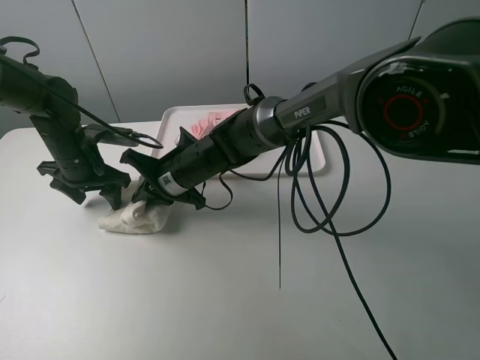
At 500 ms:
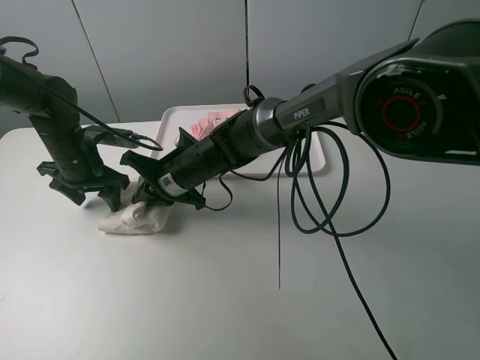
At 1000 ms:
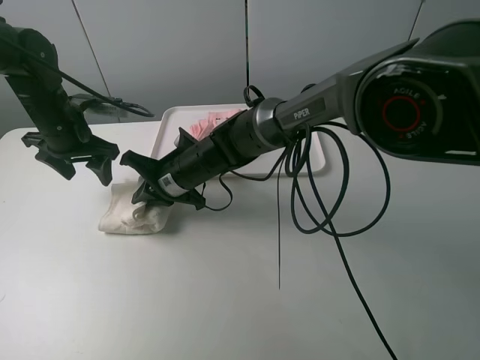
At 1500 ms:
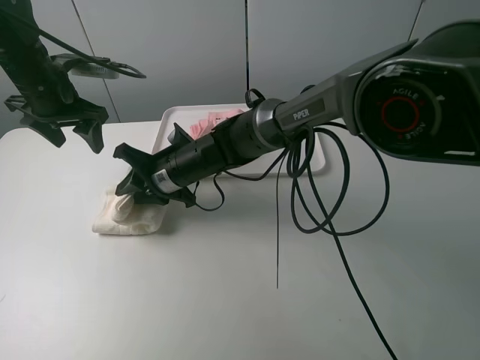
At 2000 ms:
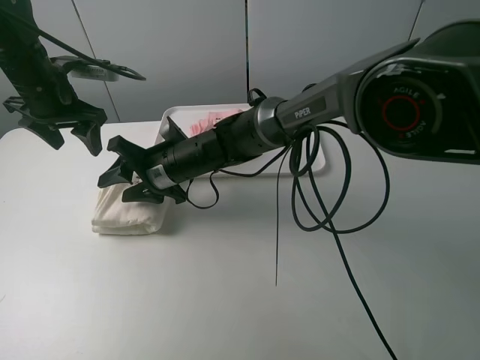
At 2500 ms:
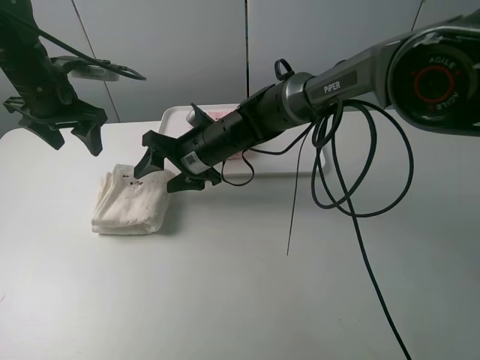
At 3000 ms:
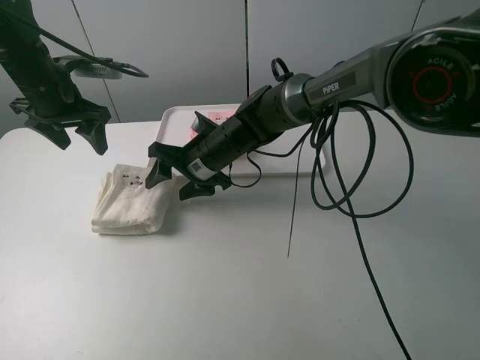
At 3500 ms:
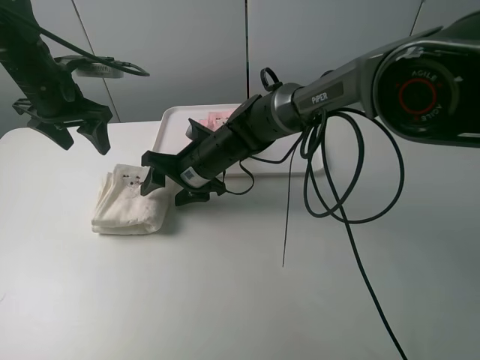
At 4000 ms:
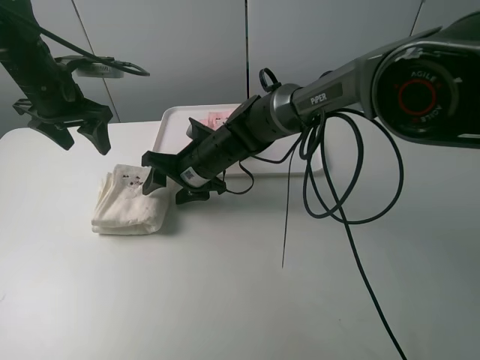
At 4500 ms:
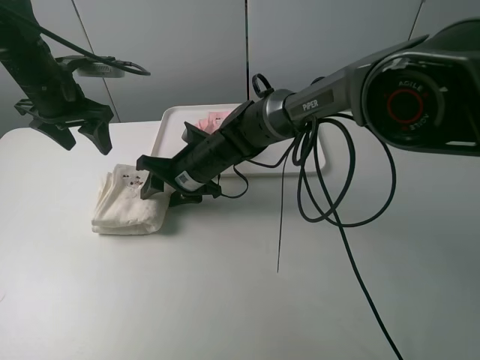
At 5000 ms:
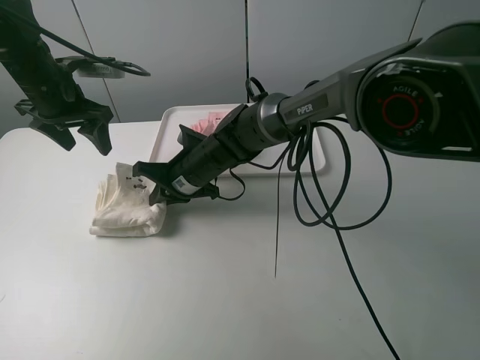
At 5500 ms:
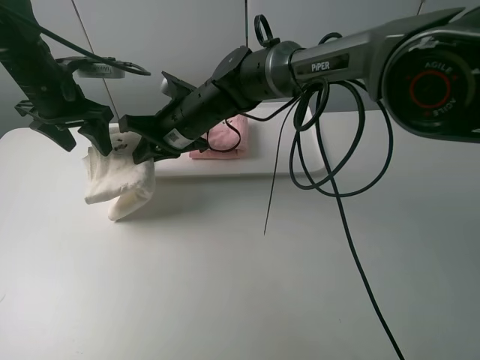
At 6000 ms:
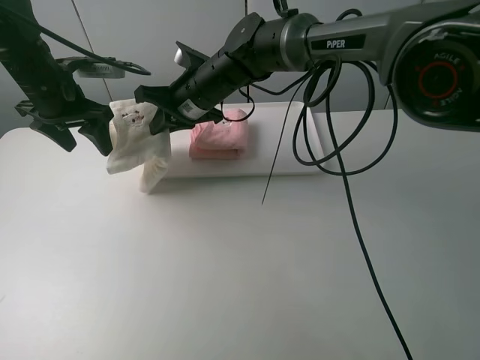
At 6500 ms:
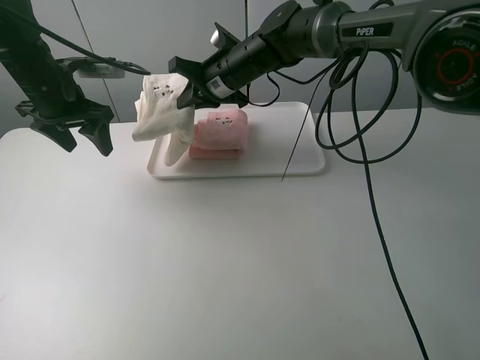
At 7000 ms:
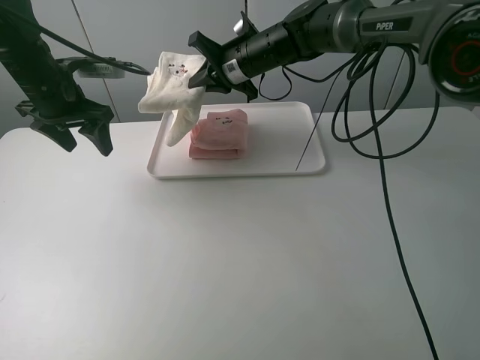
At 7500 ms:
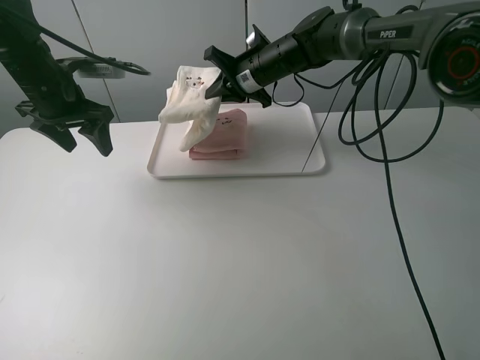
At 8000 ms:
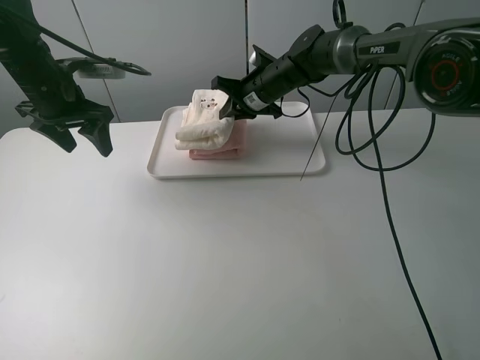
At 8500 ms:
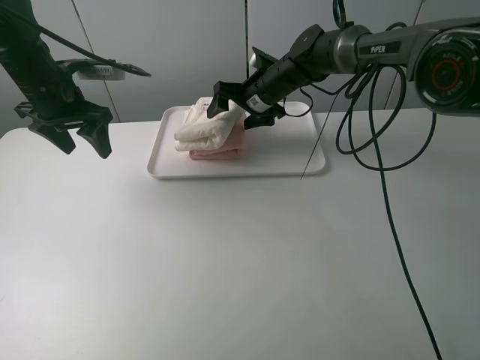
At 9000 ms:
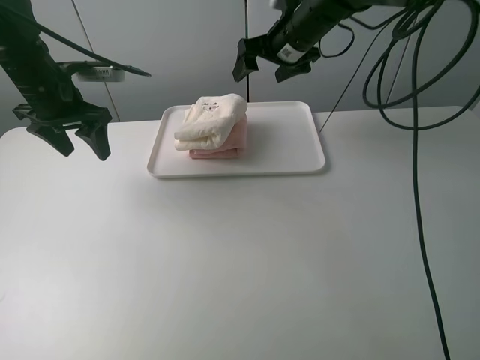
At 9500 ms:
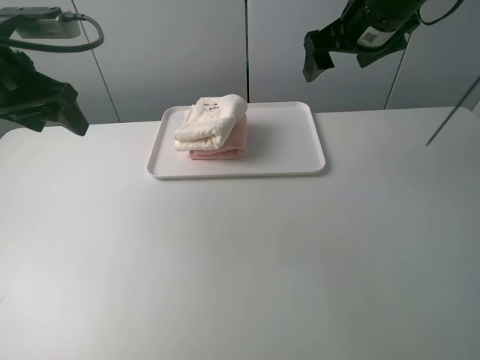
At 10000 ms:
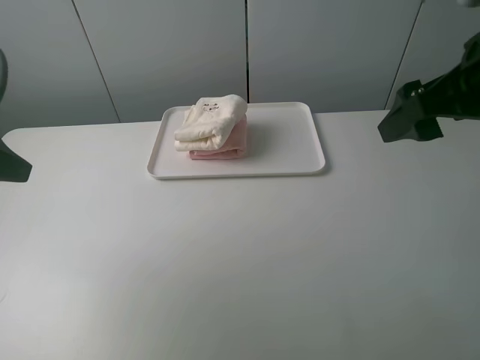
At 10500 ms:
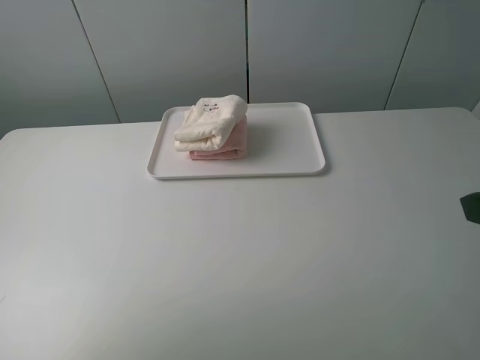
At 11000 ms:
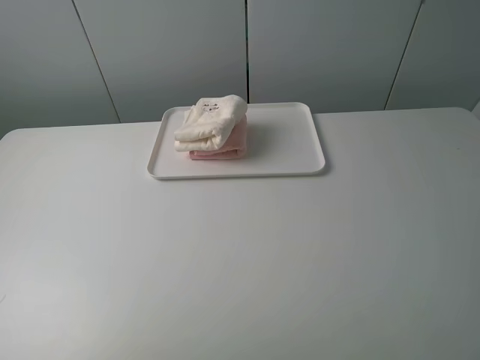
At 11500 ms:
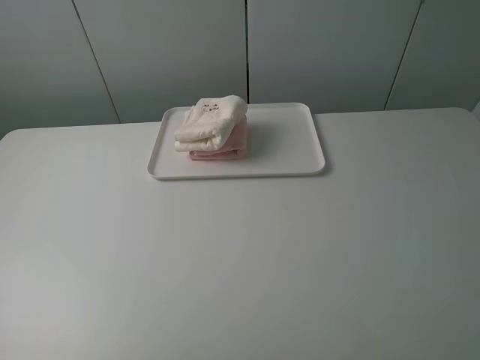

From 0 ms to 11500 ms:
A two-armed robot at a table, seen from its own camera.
Task of the whole recording: fold one of the towels by two grippers and place it on the tray,then fold another towel by two grippers and place it on the folded towel.
Step, from 2000 ms to 4500 ms: Grasp the white towel with the right gripper.
Step, from 5000 ms to 8500 ms: Place the white towel on the pink towel with the right gripper.
From 0 ms to 2000 ms: The right gripper opens its fingers. The left gripper is displaced upward by approximately 10 cm.
From 4000 ms to 6000 ms: The right gripper goes about 10 cm upward and forward, and closes up.
From 6000 ms to 7500 ms: The right gripper is displaced to the right and forward by about 10 cm.
From 7500 ms to 9500 ms: The left gripper goes approximately 10 cm backward and upward; the right gripper goes roughly 20 cm upward, to the right and backward, and opens up.
From 9500 ms to 11500 ms: Both grippers move backward, roughly 35 cm.

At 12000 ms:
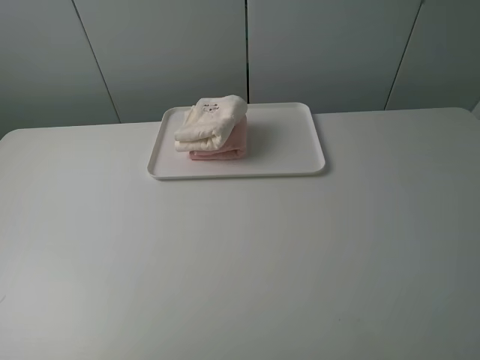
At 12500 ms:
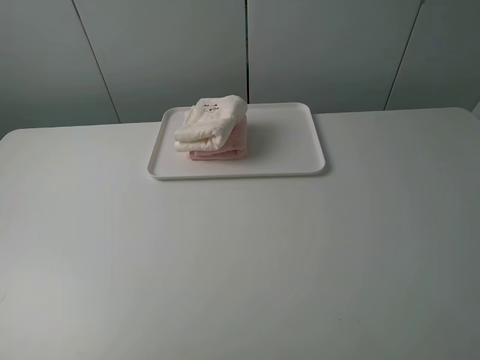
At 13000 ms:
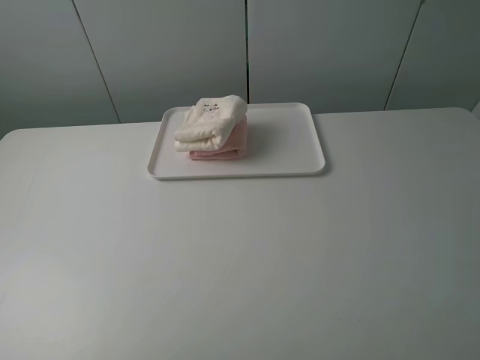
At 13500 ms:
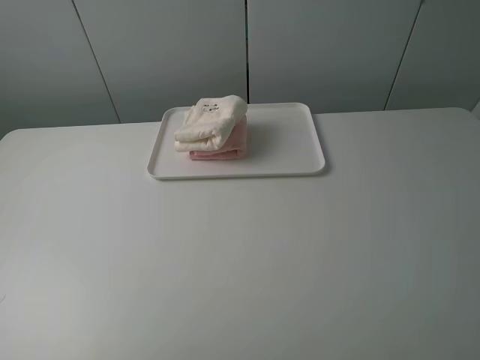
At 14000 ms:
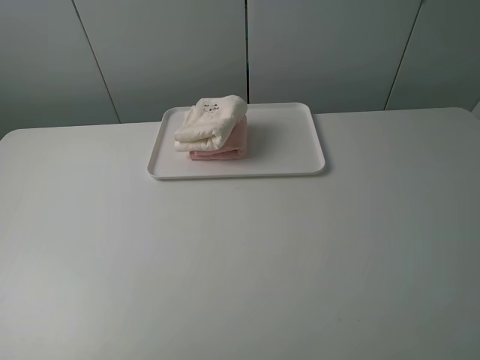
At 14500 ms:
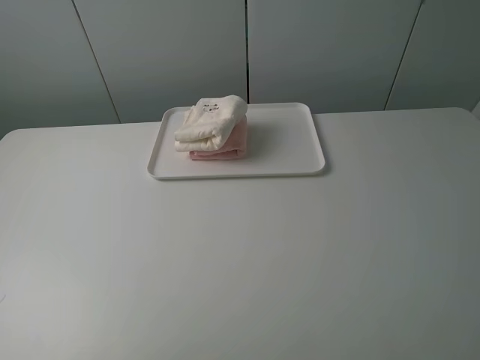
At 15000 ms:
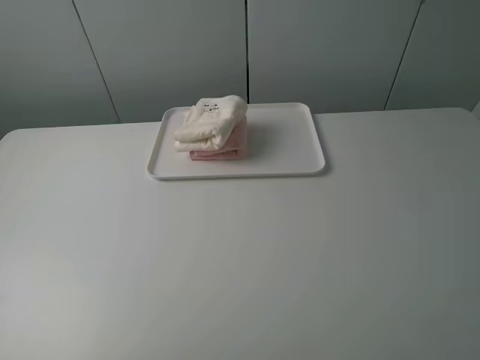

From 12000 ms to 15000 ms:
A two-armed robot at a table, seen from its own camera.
Task of the whole recording: fold one of the towels by two grippers and place it on the tray,then fold another towel by two grippers and place it on the folded towel.
From 13500 ms to 15000 ms: Both grippers stay put.

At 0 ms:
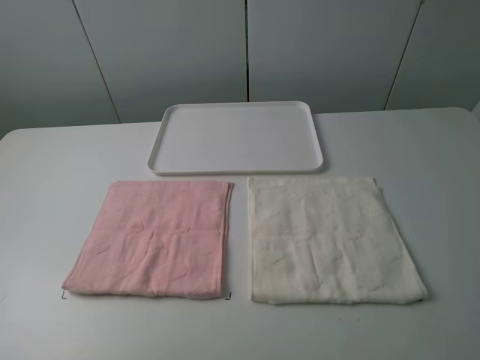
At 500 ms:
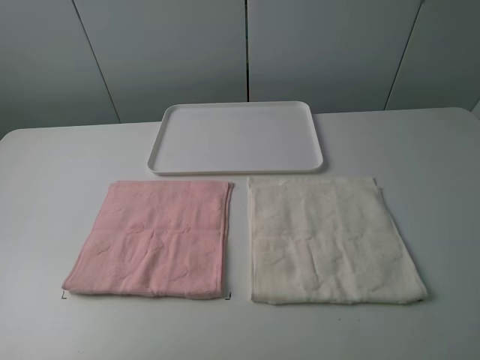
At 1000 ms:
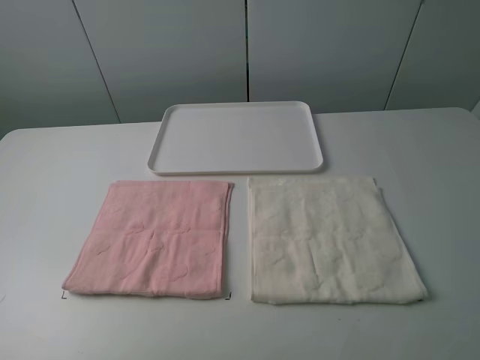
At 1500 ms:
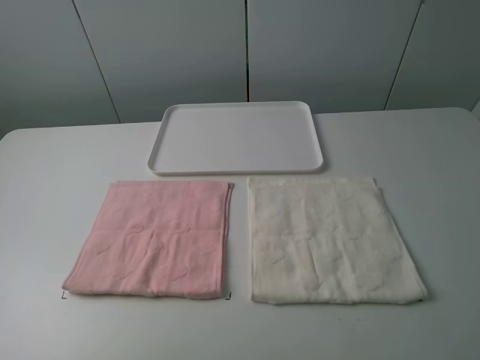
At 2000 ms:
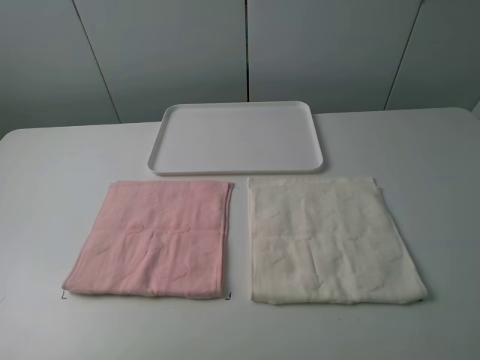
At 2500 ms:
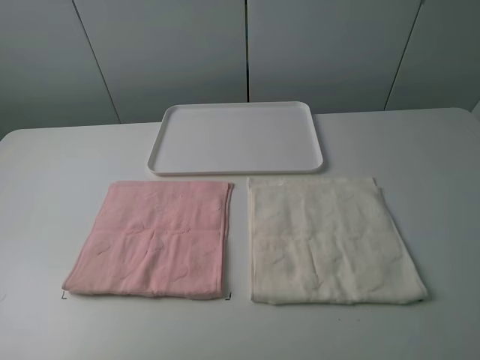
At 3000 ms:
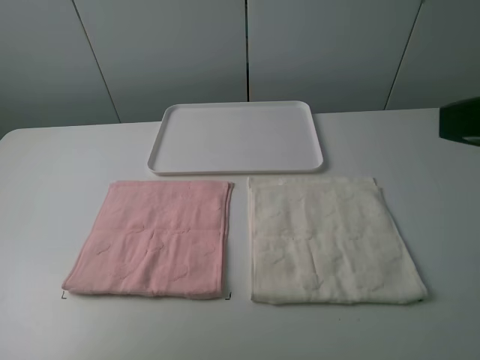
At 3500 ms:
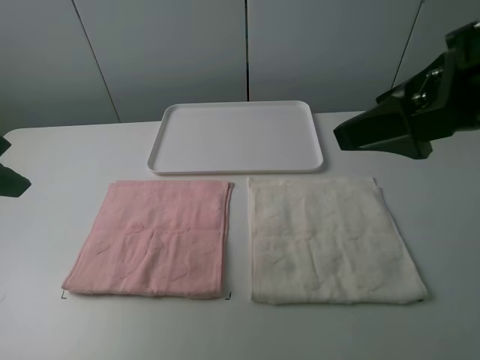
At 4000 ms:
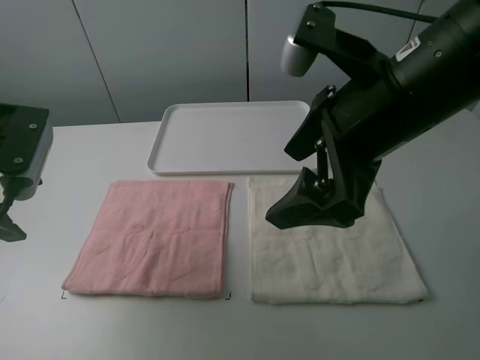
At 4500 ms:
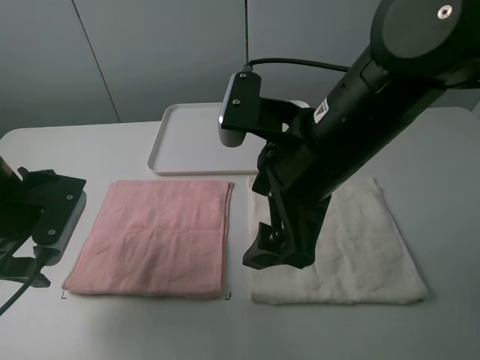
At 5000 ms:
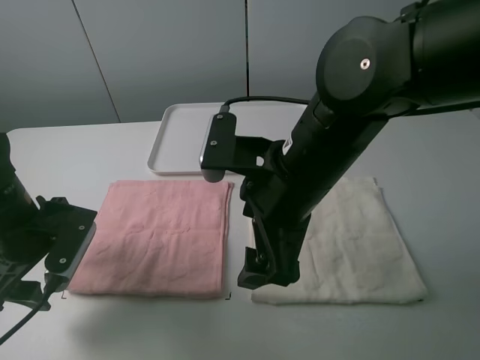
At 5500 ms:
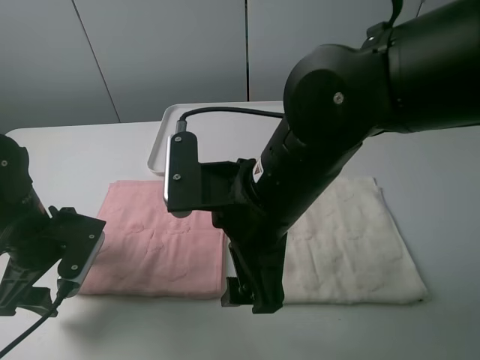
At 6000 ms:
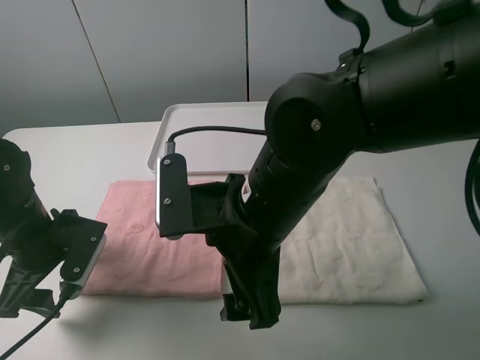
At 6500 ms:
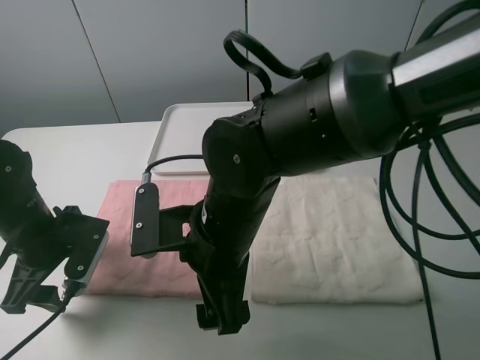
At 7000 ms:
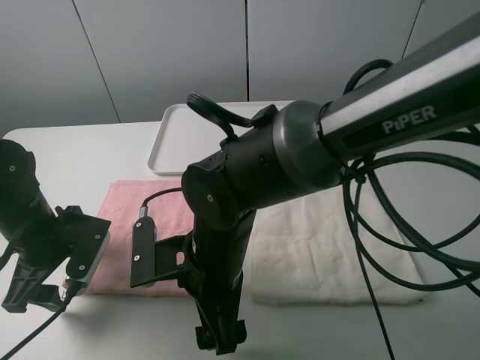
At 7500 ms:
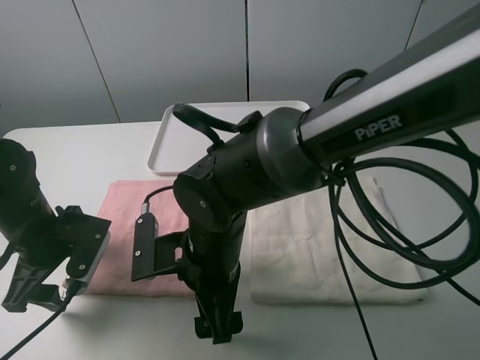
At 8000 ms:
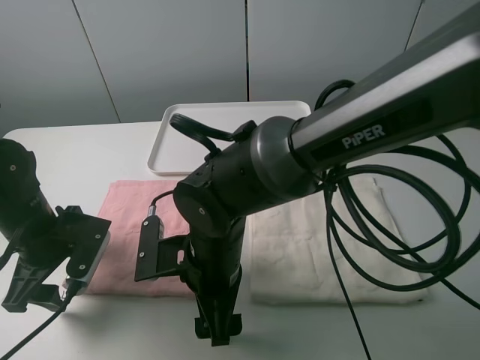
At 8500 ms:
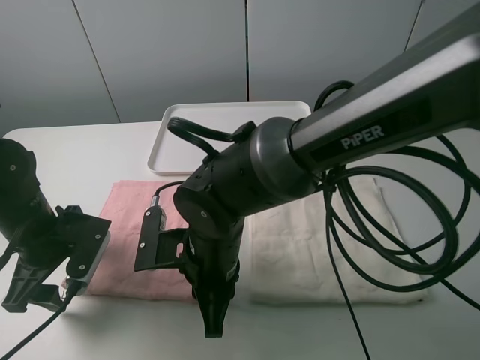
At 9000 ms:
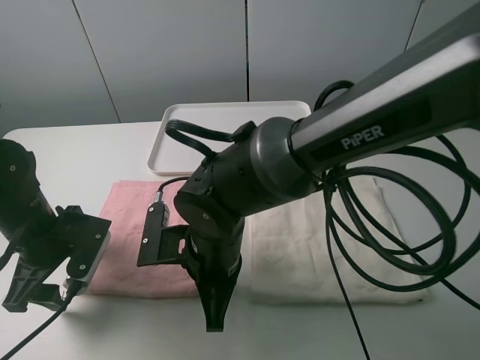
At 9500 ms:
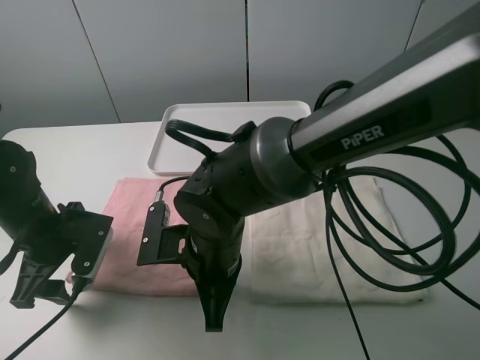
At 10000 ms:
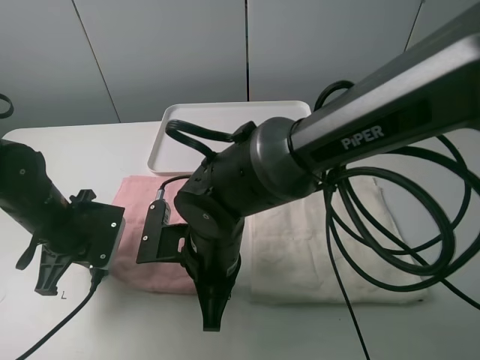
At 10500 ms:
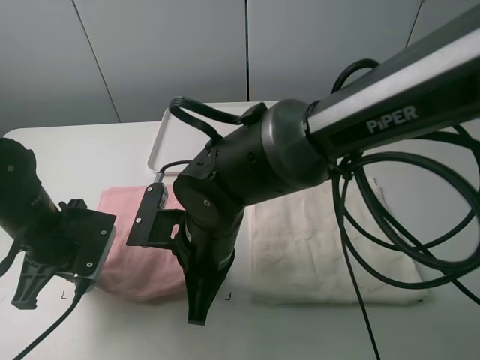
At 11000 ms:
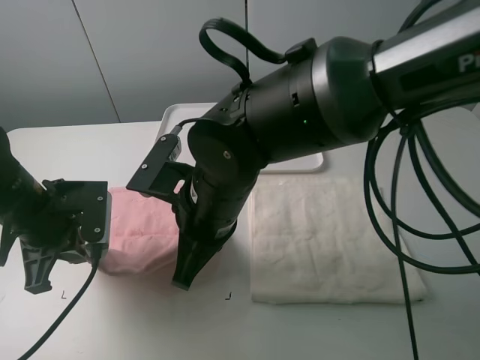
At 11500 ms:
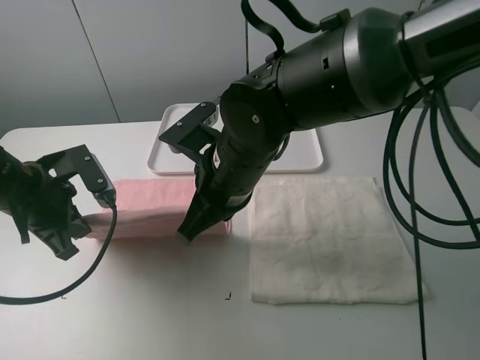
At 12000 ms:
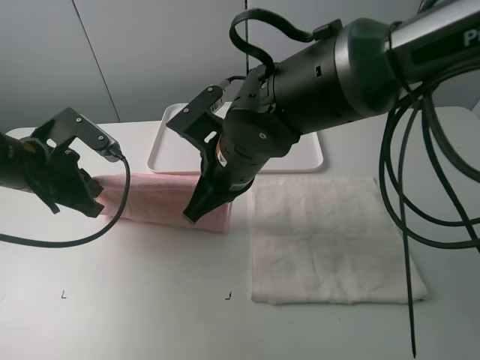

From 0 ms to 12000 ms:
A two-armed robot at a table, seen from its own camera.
Task of the whole recording: fold one of the towels by two grippers and place it on the tray,then fold another towel by two grippers and place it on the folded towel.
Step, from 0 ms to 10000 ms: Grasp the pink towel with the left gripper.
From 2000 ms to 4000 ms: The left gripper travels forward by some 25 cm. Meanwhile the right gripper shifts about 25 cm forward and to the left.
From 4000 ms to 6000 ms: The left gripper shifts roughly 15 cm downward. The right gripper shifts approximately 15 cm to the left and downward.
From 6000 ms to 8000 ms: The right gripper travels downward by some 10 cm.
From 8000 ms to 10000 ms: The left gripper closes its fingers. Meanwhile the right gripper closes up.
From 10000 ms to 12000 ms: The right gripper shifts about 10 cm upward and forward, while the left gripper heads upward, covering approximately 5 cm.
